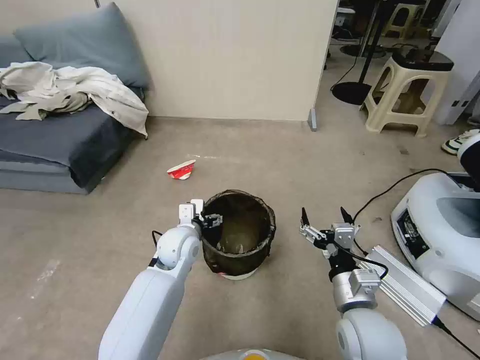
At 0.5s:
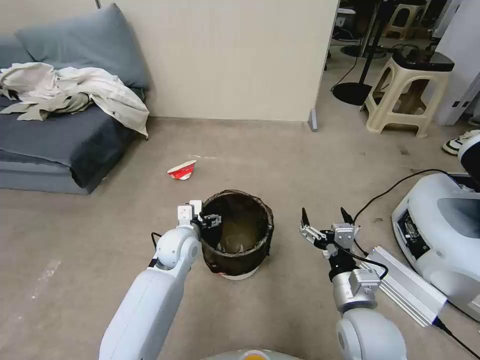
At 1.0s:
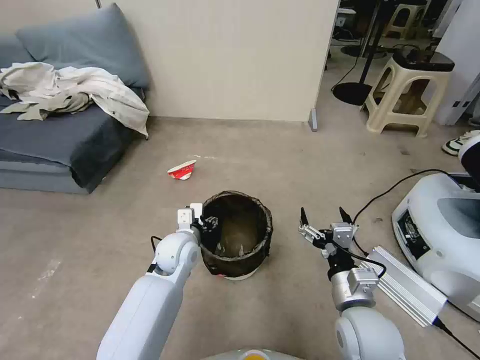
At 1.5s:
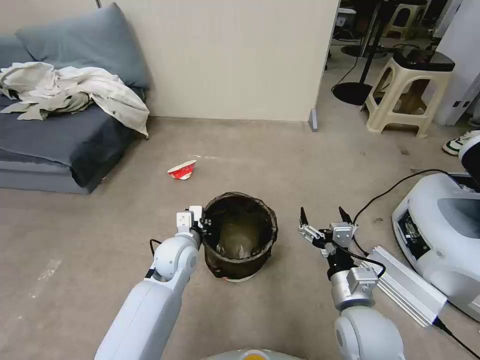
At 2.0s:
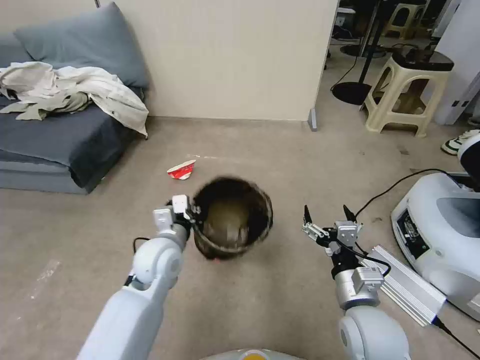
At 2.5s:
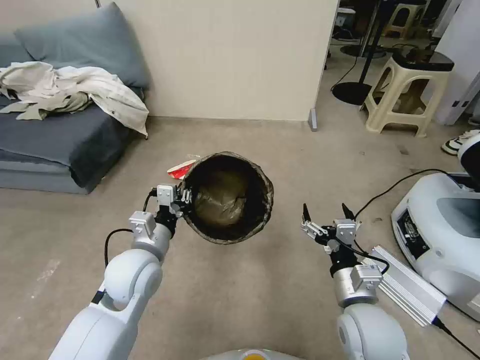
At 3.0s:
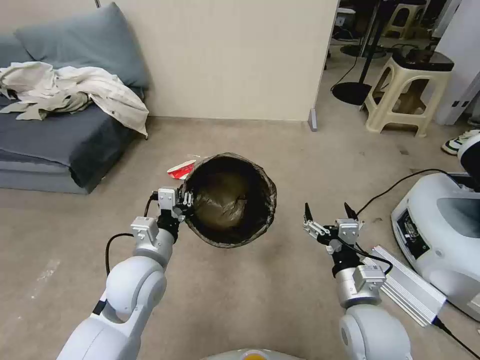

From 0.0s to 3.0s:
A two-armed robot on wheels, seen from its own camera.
Task of the whole recording: Pick up the trash can from the floor.
From 0.0s to 1.5s: The left gripper closes.
From 1.5s to 3.0s: The left gripper is displaced backward and upward by roughly 10 cm.
